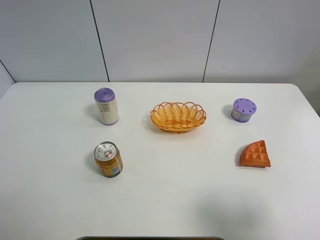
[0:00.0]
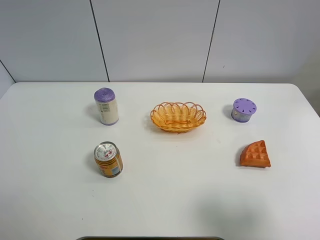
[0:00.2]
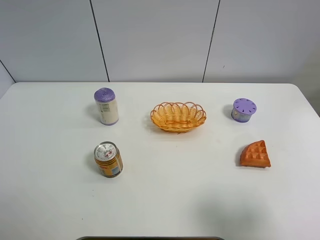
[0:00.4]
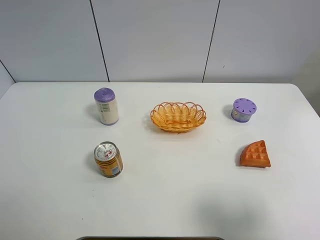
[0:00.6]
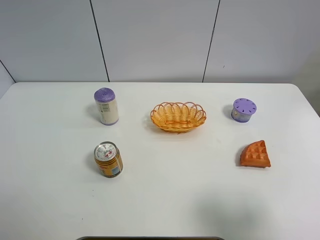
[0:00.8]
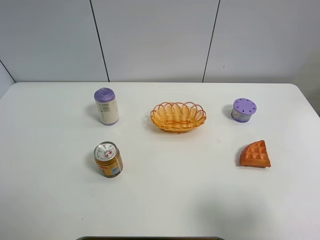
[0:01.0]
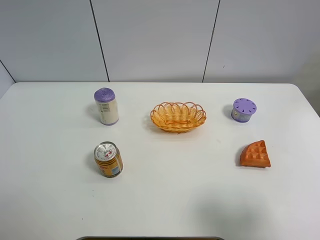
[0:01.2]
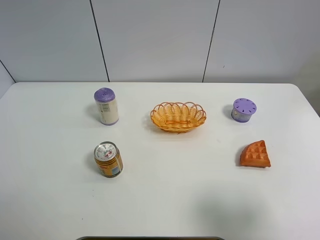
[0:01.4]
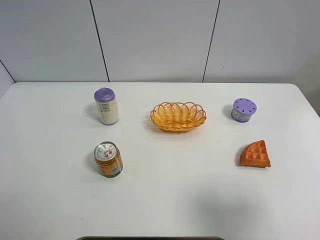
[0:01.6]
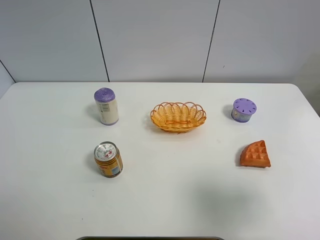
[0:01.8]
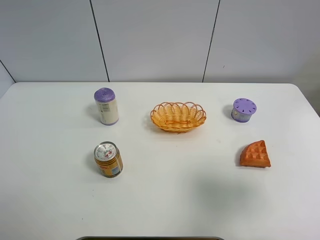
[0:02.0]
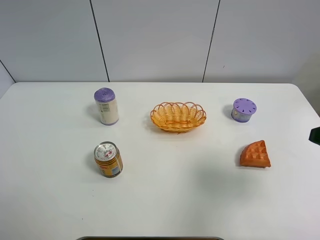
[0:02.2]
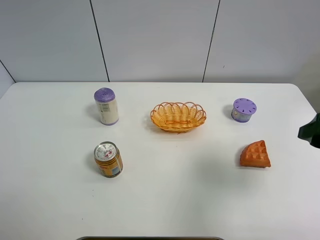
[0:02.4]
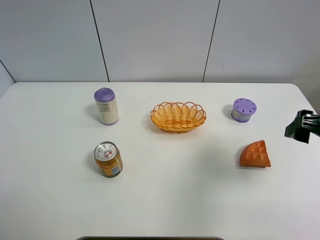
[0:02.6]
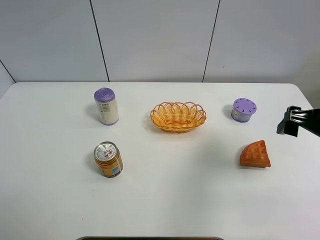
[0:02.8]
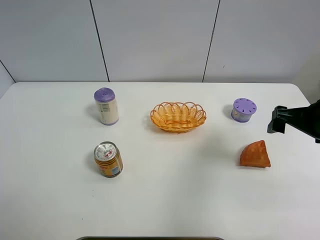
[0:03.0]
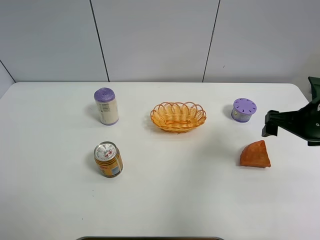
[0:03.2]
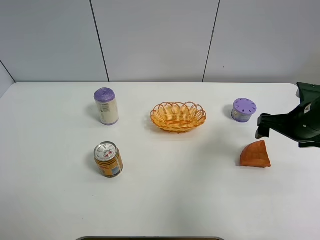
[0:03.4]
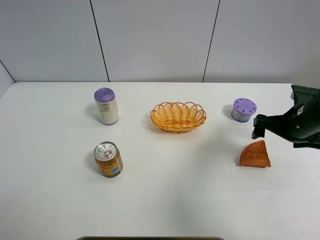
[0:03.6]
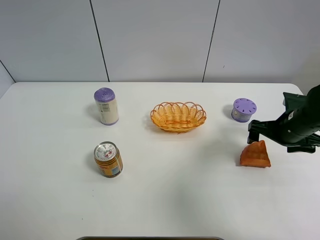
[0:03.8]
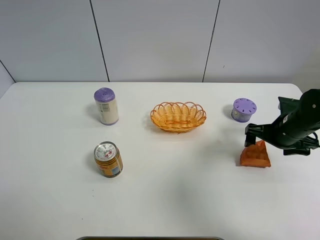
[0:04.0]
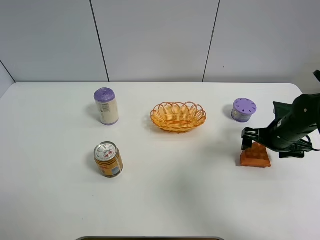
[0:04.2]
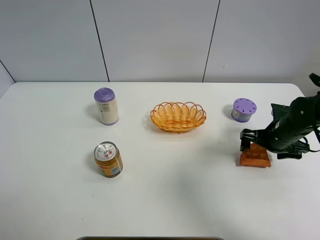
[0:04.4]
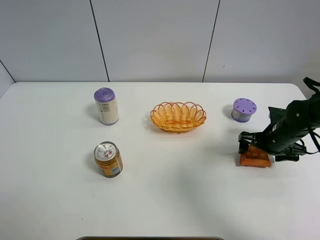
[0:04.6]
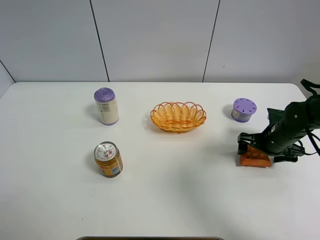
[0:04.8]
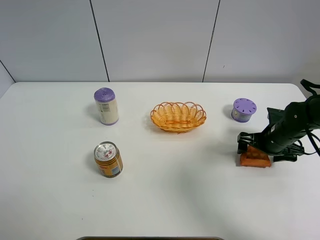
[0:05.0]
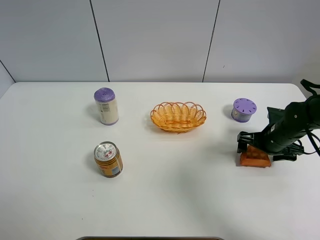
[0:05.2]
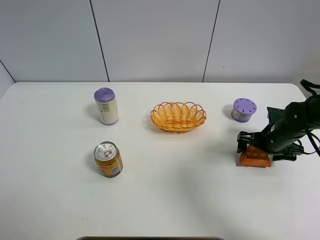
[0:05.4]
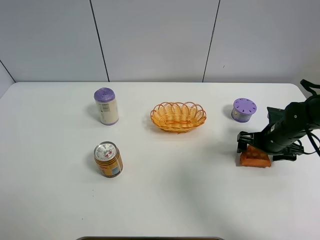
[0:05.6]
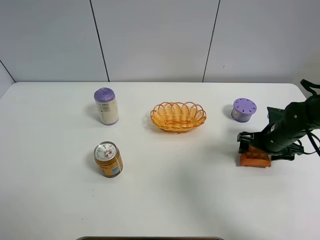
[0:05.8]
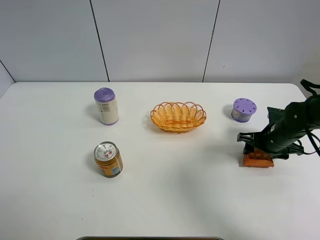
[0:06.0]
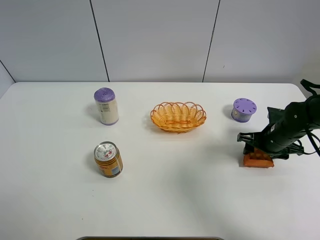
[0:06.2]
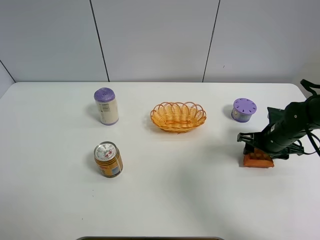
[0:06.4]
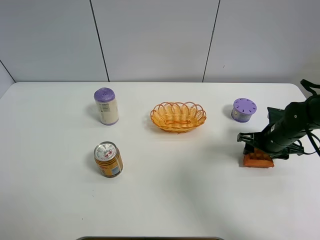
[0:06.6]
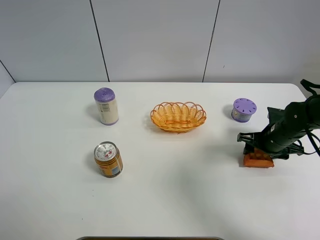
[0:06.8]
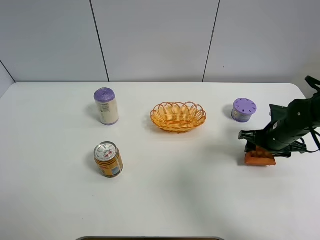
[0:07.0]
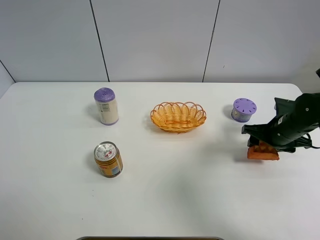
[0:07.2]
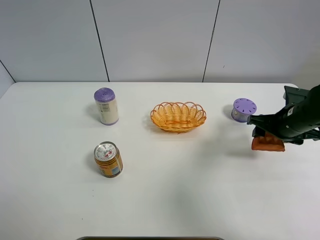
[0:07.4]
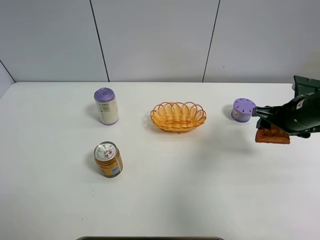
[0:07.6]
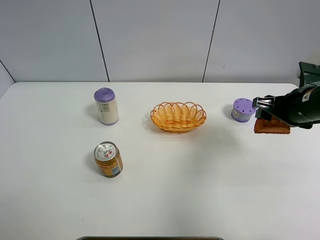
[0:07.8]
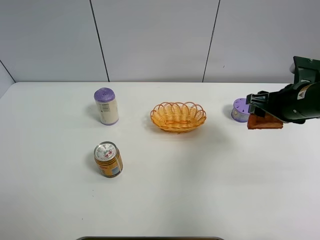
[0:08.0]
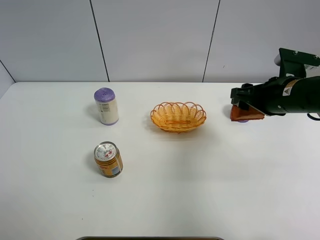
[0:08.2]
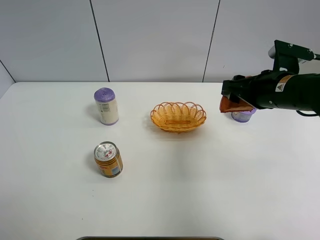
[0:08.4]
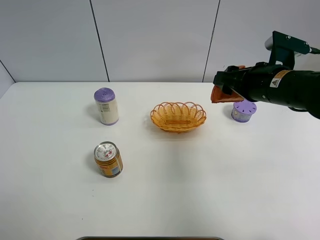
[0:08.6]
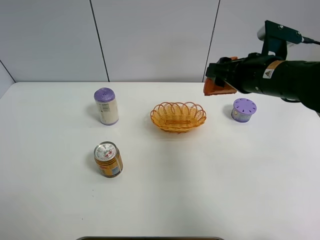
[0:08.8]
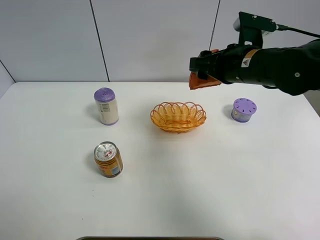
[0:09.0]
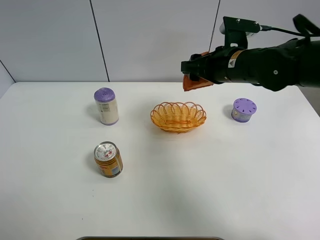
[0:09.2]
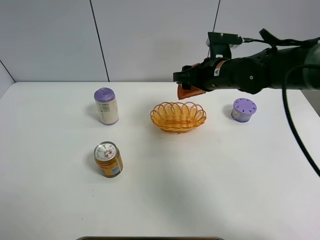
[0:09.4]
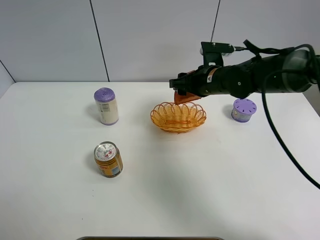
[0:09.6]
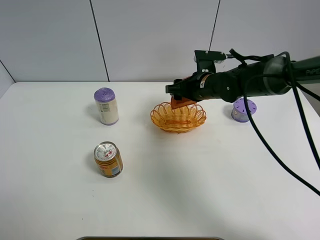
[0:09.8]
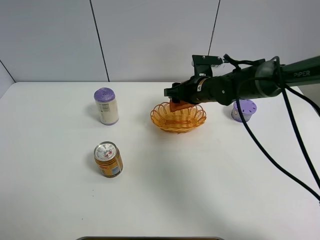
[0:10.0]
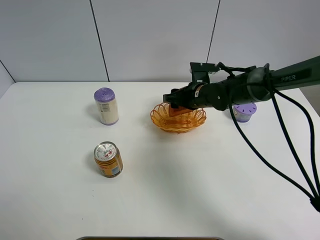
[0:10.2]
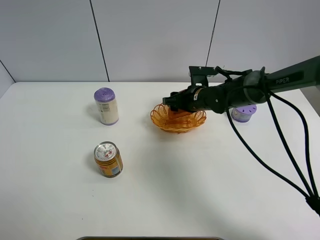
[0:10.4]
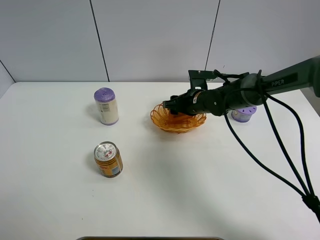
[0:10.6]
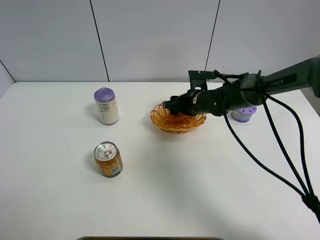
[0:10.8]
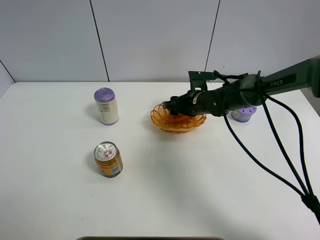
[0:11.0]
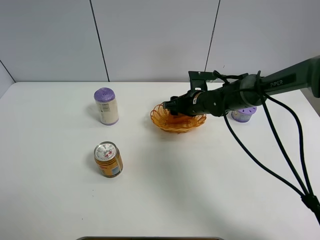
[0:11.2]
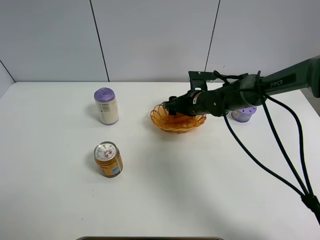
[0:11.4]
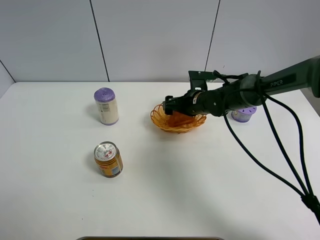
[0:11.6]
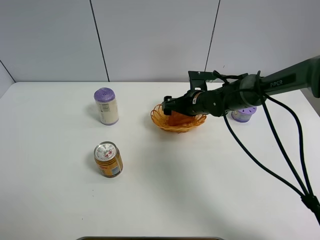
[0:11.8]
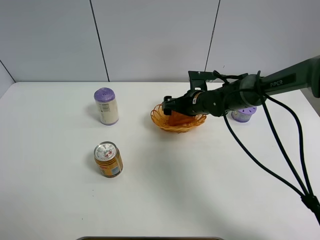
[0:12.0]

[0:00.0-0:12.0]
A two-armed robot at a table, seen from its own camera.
Task of the whole recording: Put the bakery in the basket.
Step, 0:00.0 to 0:05.8: Grasp the bread with right gripper.
0:01.6 to 0:03.0: The right gripper goes about 20 cm forward.
0:03.0 to 0:04.4: The right gripper travels downward and forward by about 15 cm.
0:04.4 to 0:06.0: The right gripper closes.
0:06.0 to 0:07.6: The right gripper heads upward, covering roughly 10 cm.
0:07.6 to 0:09.0: The right gripper travels to the left and upward by some 15 cm.
0:09.0 to 0:10.4: The right gripper is displaced downward and forward by some 15 cm.
0:10.4 to 0:12.0: The right gripper opens.

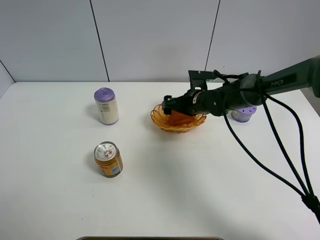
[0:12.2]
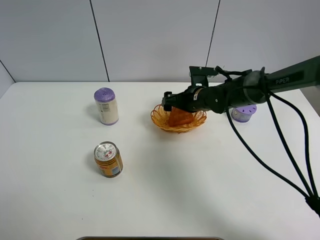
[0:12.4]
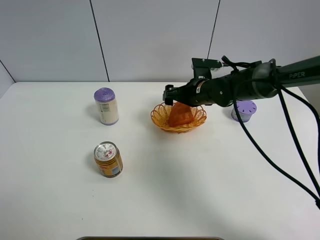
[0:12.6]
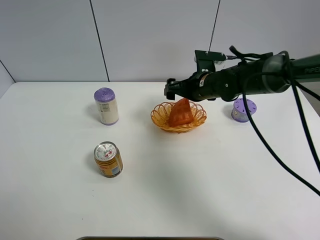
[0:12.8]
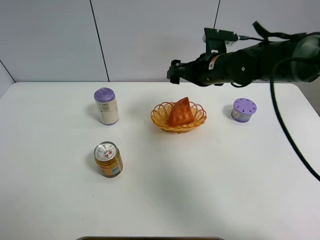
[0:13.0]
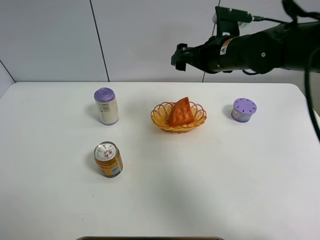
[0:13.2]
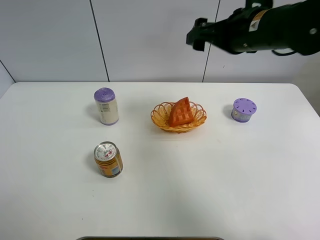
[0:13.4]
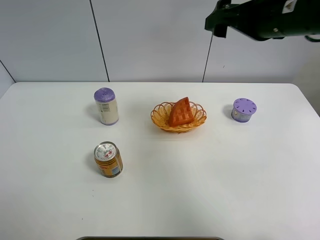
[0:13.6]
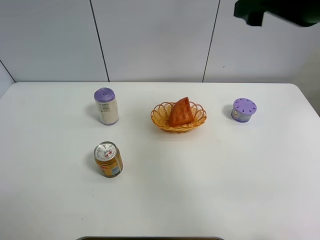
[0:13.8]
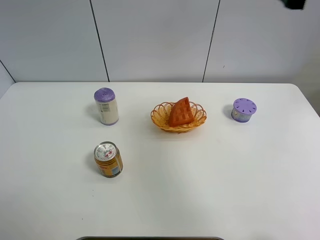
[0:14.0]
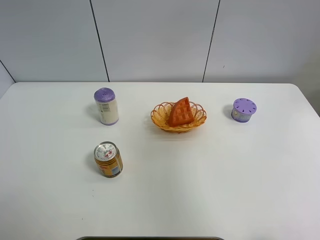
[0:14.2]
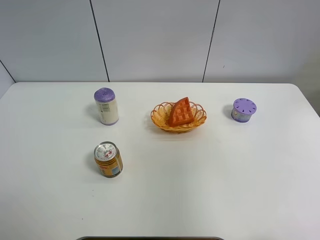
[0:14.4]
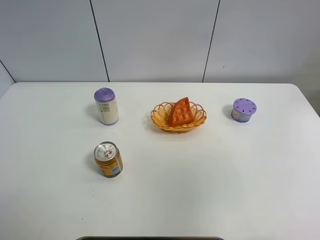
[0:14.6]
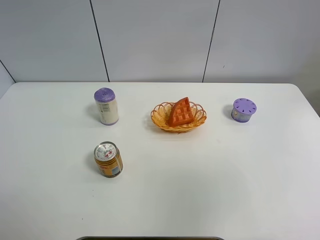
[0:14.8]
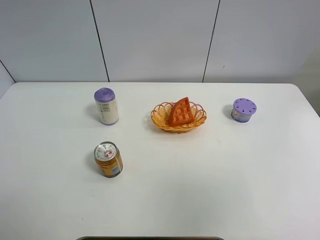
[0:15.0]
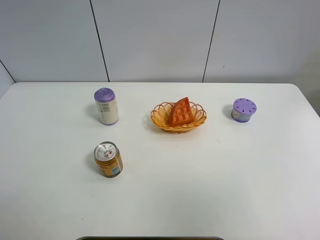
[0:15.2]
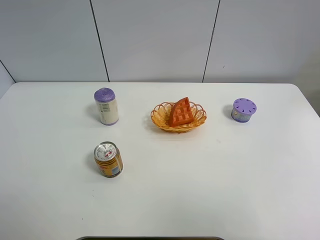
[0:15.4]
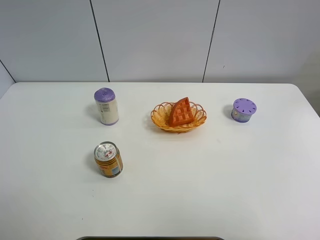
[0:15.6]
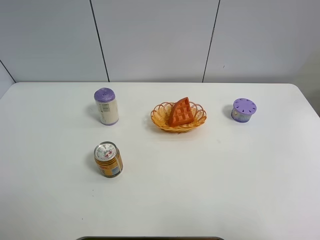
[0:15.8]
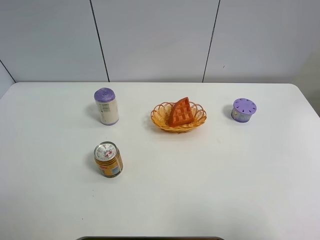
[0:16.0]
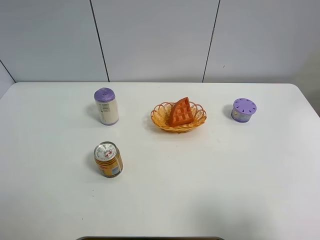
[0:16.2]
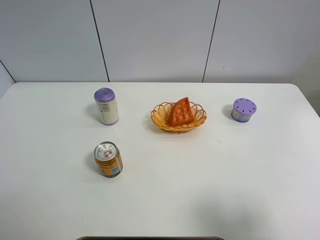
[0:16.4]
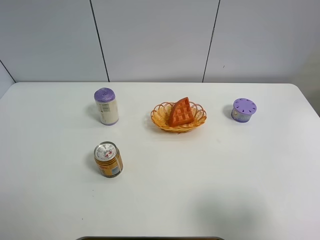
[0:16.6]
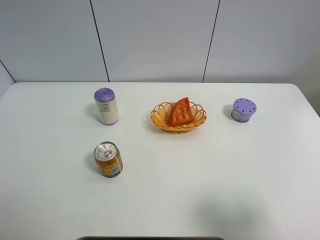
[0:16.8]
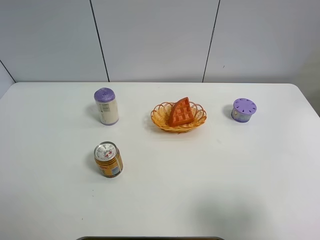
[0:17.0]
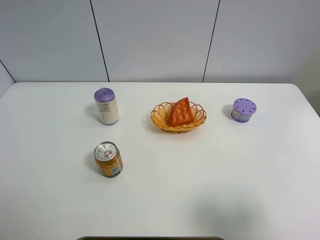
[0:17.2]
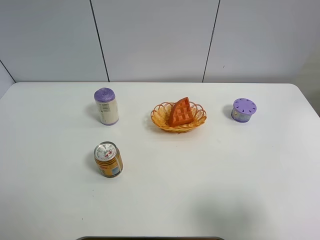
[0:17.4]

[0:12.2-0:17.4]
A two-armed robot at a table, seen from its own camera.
Task of the whole recording: Put the bakery in the basket.
0:12.2 to 0:14.0: The right gripper is displaced upward and backward by some 35 cm.
0:14.0 to 0:15.6: The right gripper travels backward by approximately 30 cm.
0:15.6 to 0:17.4: The right gripper shifts some 15 cm downward and forward.
